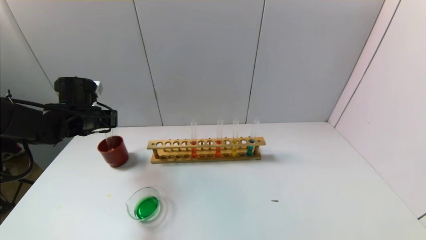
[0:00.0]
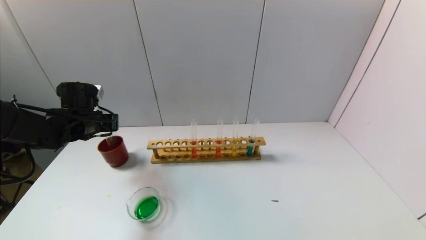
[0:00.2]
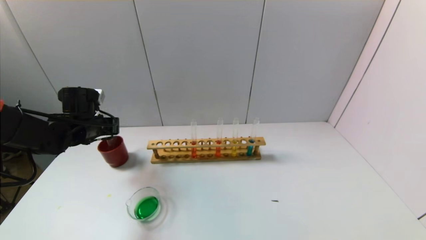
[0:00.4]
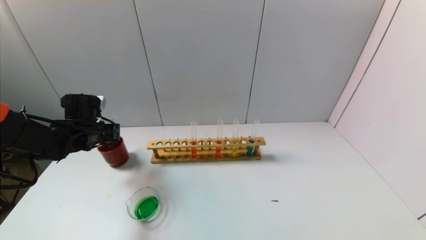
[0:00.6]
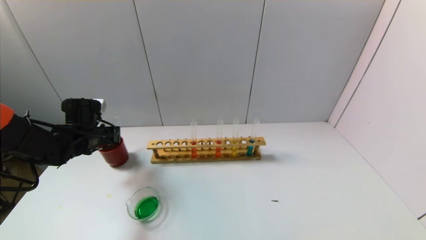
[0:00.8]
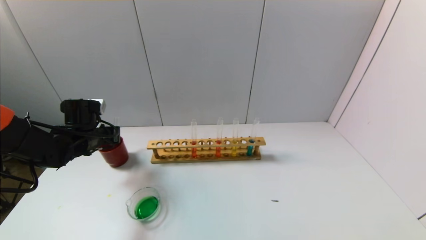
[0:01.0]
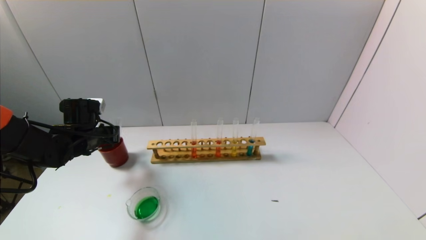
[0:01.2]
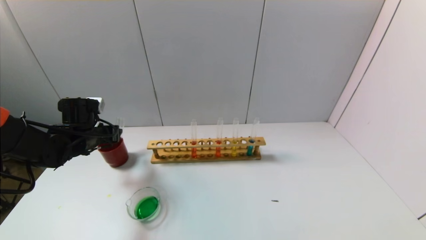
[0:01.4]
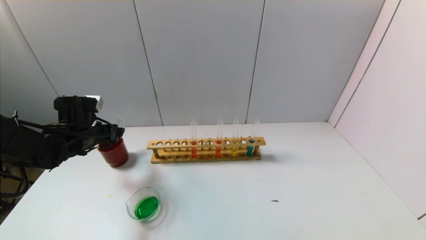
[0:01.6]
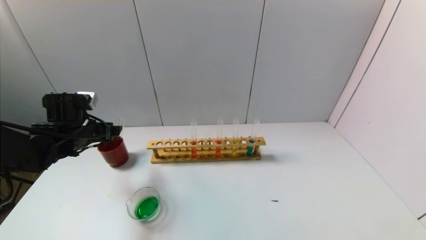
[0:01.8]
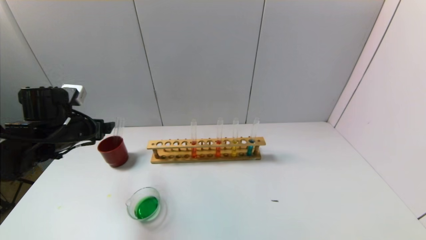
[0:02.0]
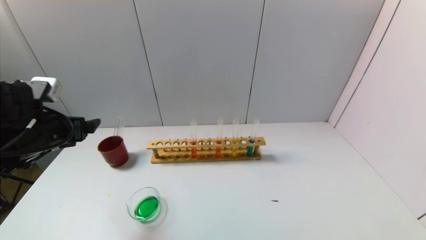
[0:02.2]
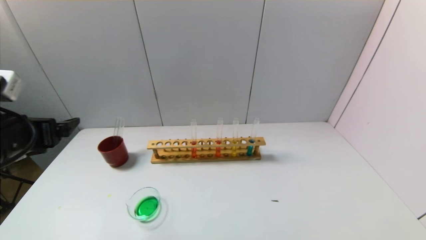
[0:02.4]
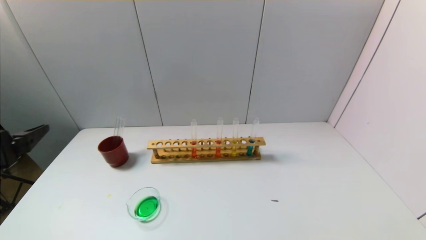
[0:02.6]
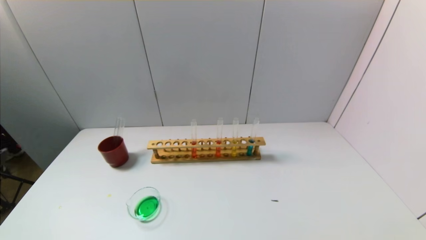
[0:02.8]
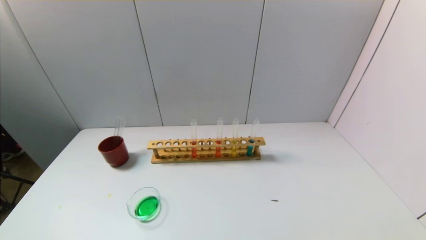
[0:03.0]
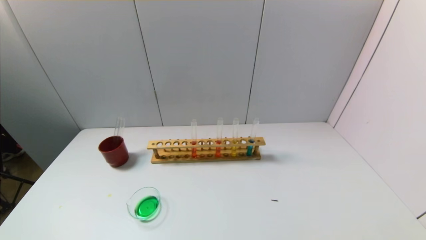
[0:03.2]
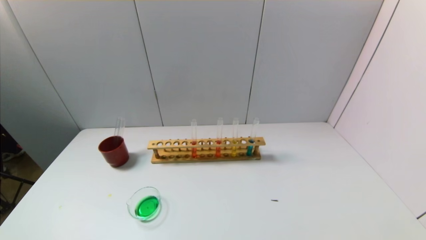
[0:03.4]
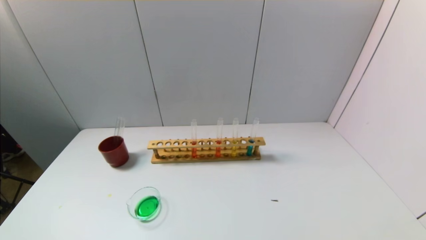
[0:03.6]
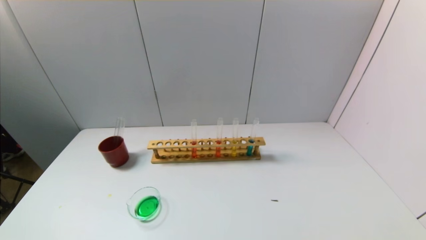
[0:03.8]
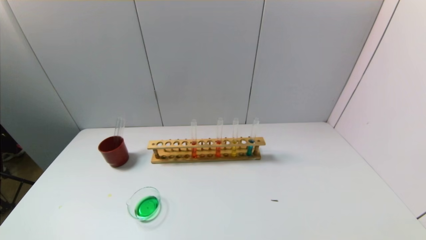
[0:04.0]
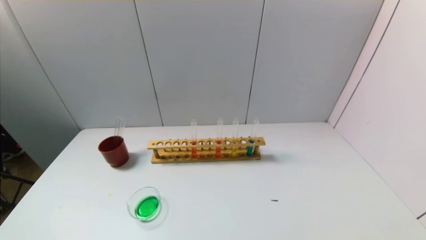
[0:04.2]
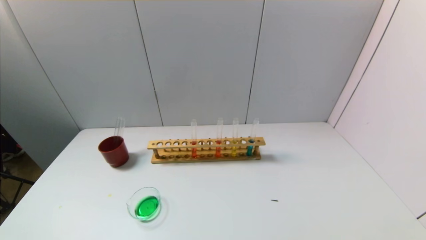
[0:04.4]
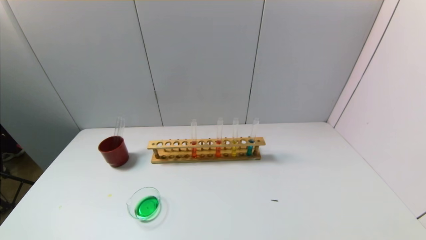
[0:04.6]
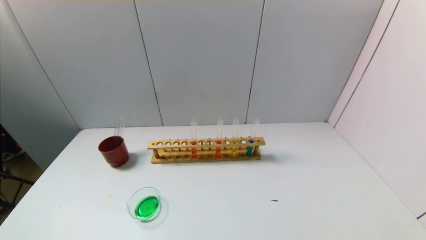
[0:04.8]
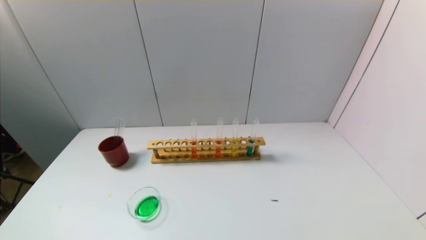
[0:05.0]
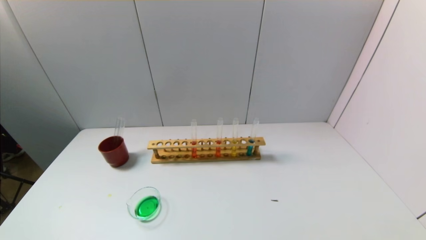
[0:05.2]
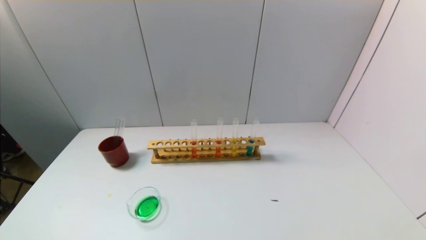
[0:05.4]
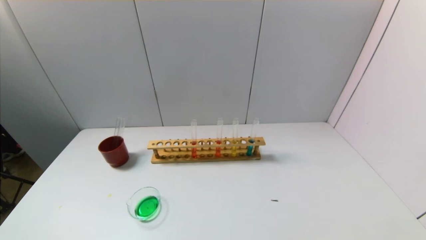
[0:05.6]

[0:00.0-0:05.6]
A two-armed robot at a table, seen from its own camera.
Task of the whole recording: pick up the test tube with yellow pigment and the test tube with blue pigment by grippers and pour them into the beaker.
0:00.0 to 0:01.4: The left gripper opens its fingers.
0:01.4 to 0:02.8: The left gripper heads backward, covering approximately 30 cm.
